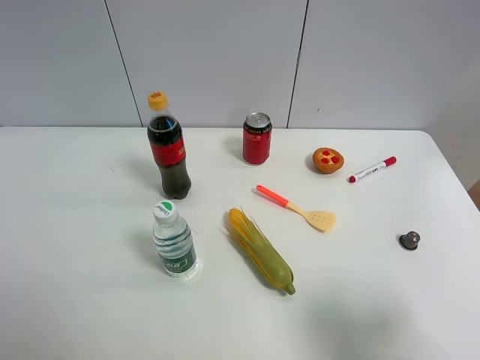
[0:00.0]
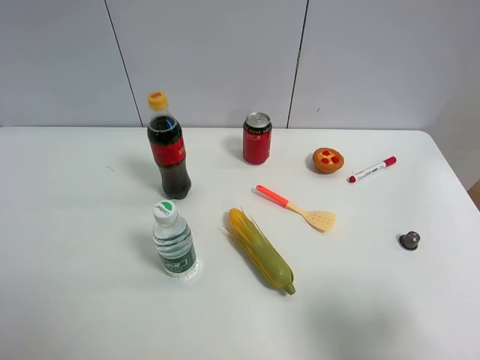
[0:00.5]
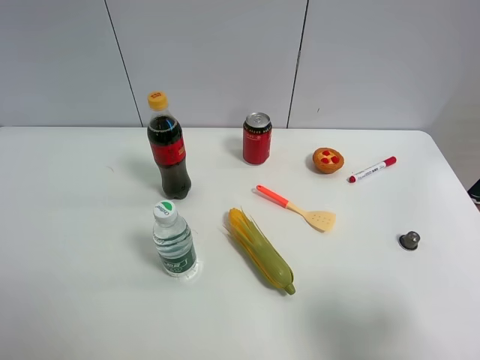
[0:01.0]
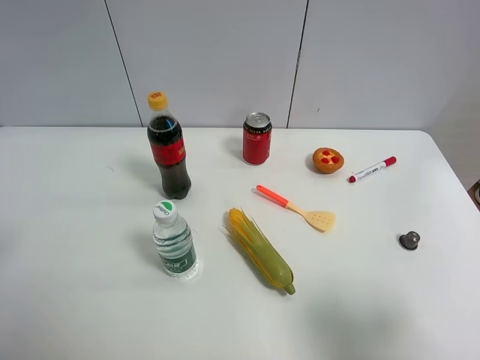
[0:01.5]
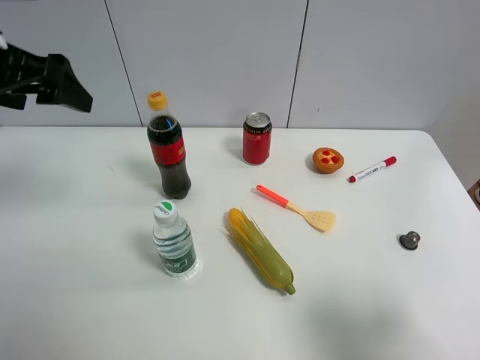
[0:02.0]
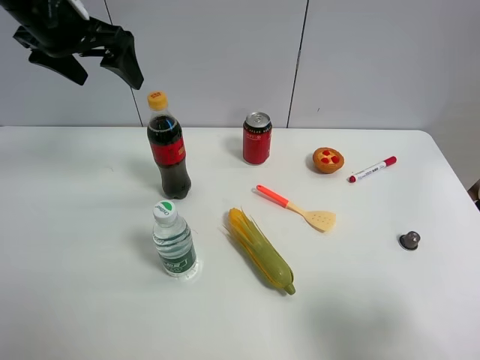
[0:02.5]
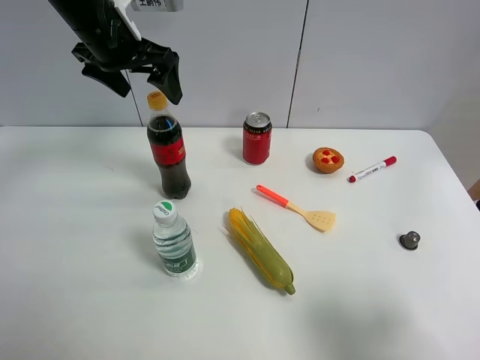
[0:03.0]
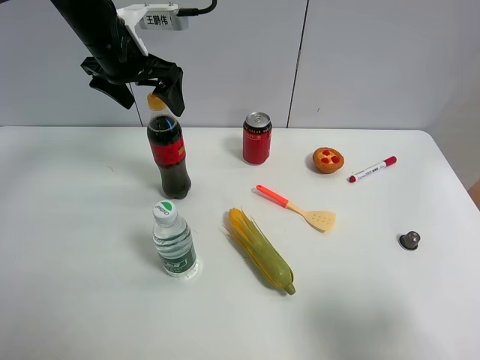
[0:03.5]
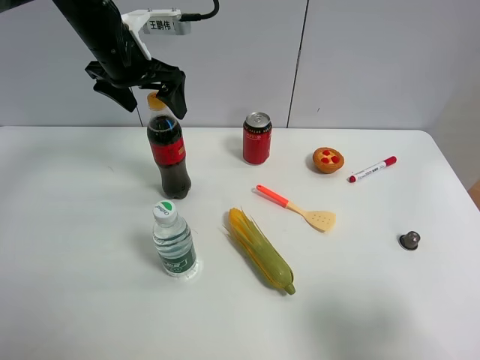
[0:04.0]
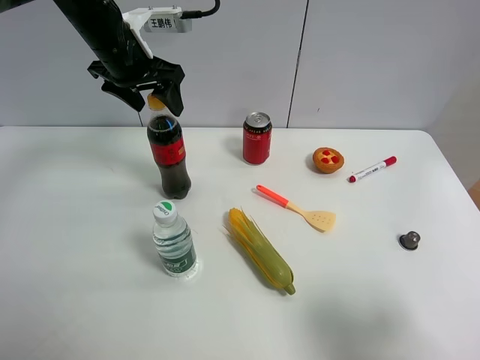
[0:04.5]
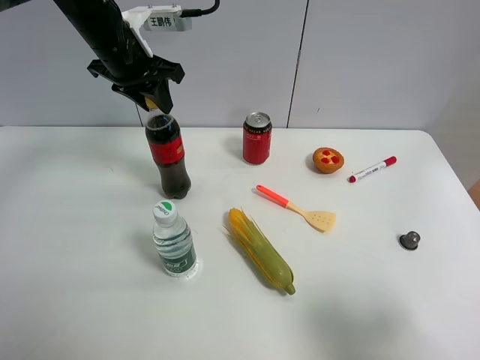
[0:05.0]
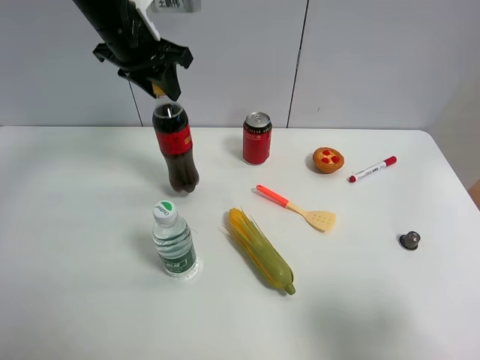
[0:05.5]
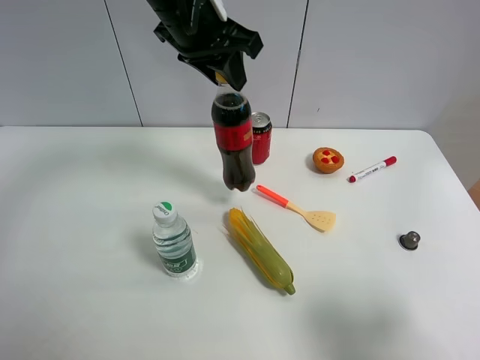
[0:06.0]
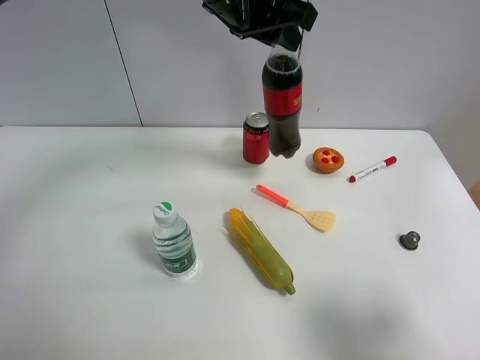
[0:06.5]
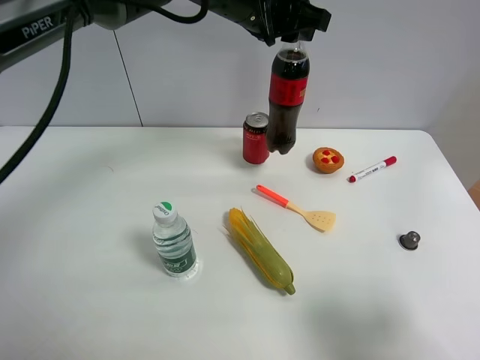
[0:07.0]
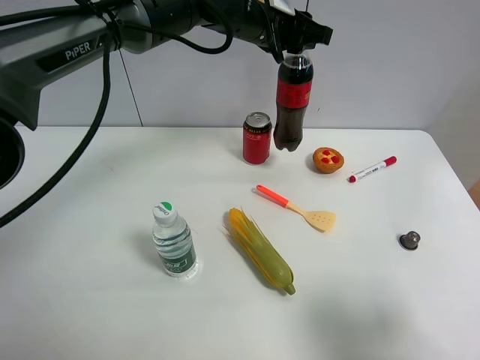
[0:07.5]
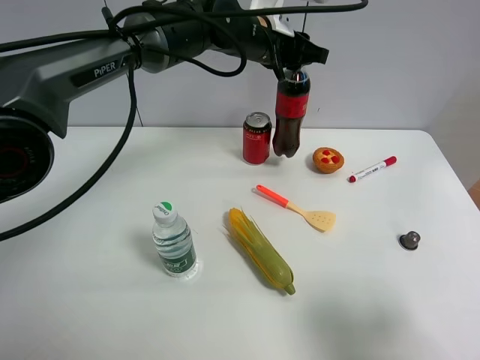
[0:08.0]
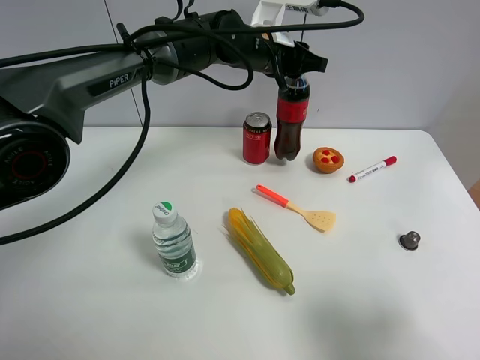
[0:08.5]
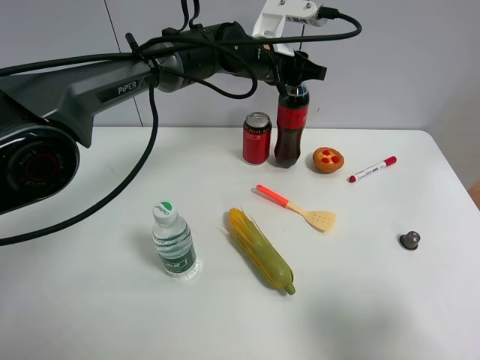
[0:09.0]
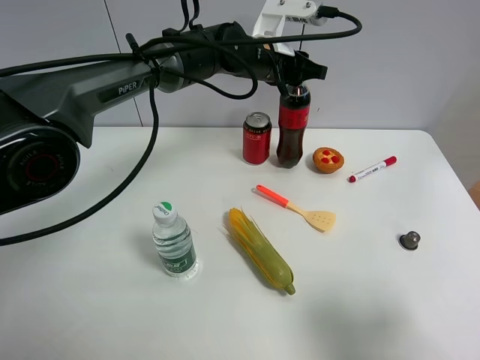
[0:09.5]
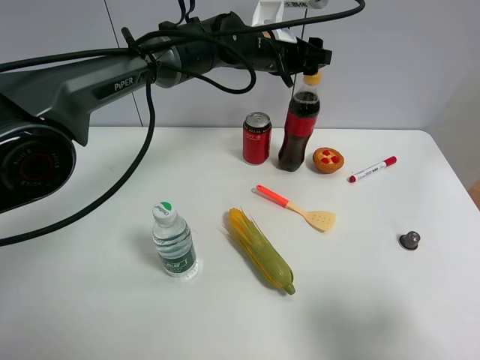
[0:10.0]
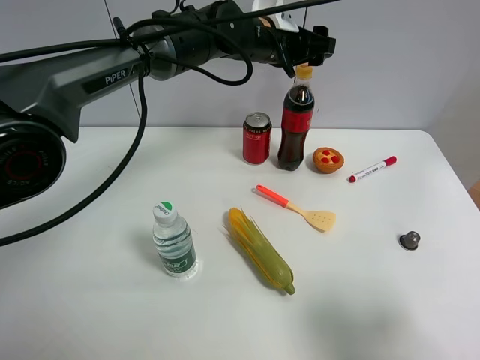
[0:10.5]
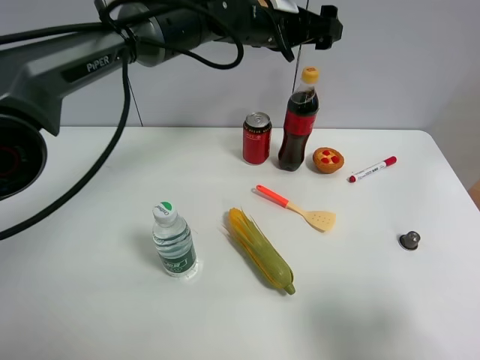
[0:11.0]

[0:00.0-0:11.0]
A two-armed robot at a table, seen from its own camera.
Task of the whole recording: the gripper move the object.
Step, 0:00.0 to 0:04.5: Grasp the coke with the left gripper.
Step, 0:05.0 to 0:09.5: Place the coke on the table with the left gripper.
0:00.0 to 0:02.0: The left gripper is displaced forward by approximately 25 cm.
0:02.0 to 0:03.5: The left gripper shifts roughly 15 cm forward, to the right and downward.
0:03.5 to 0:05.5: The left gripper closes up.
0:05.5 to 0:07.5: The left gripper goes some 15 cm to the right.
0:07.5 to 0:09.0: The left gripper shifts some 5 cm downward.
0:09.0 to 0:11.0: The left gripper is displaced upward by some 5 cm, and opens up.

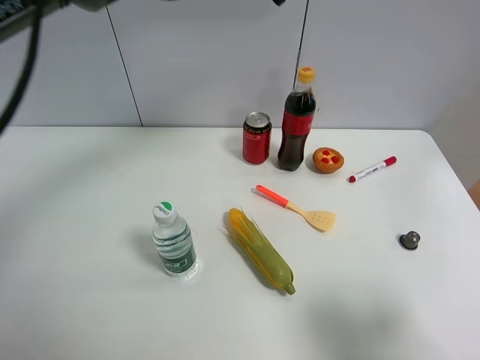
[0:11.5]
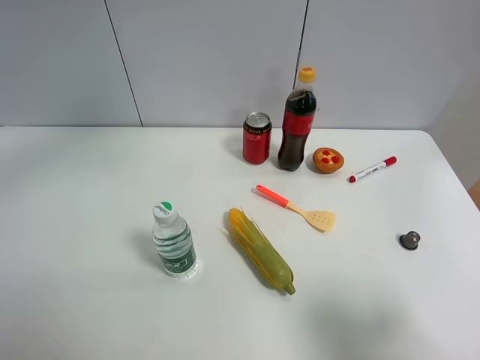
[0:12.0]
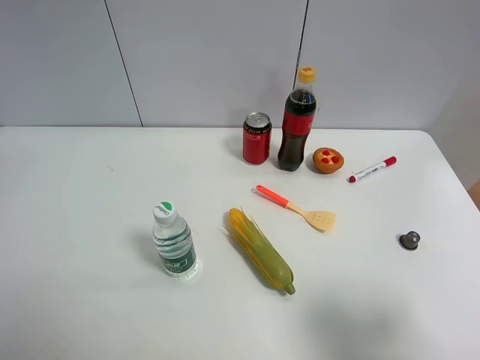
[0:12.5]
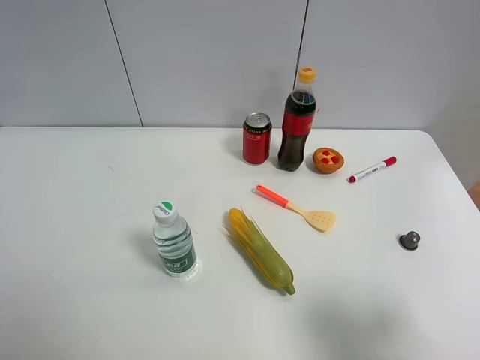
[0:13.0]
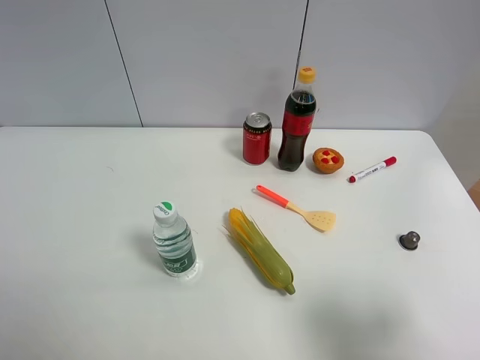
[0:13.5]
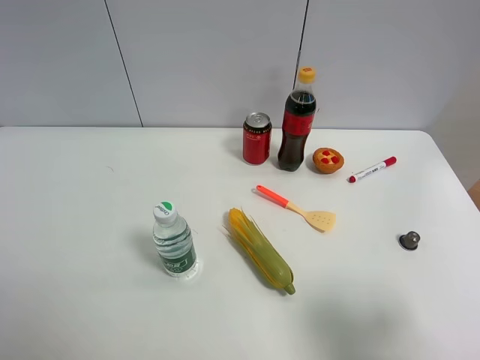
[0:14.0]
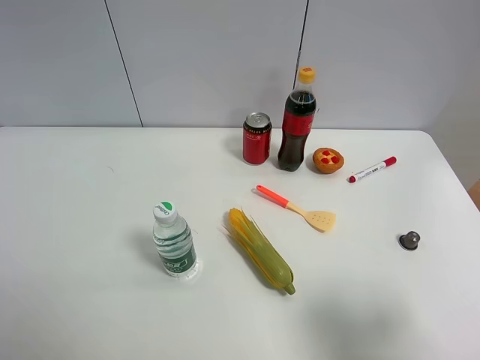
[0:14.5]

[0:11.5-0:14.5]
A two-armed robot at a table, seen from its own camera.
Task of the whole recording: the gripper move the object.
0:11.5 to 0:13.0: The left gripper moves backward and to the left, some 50 cm.

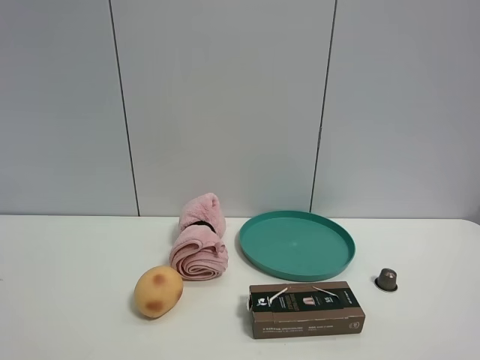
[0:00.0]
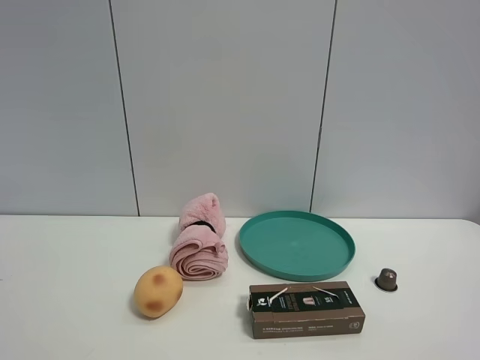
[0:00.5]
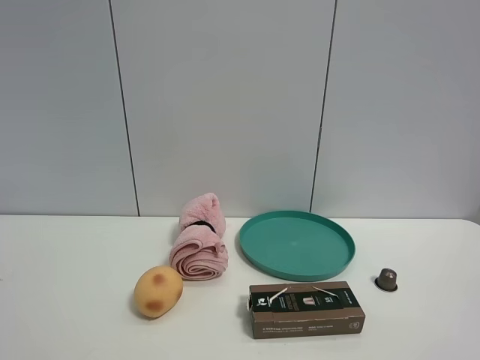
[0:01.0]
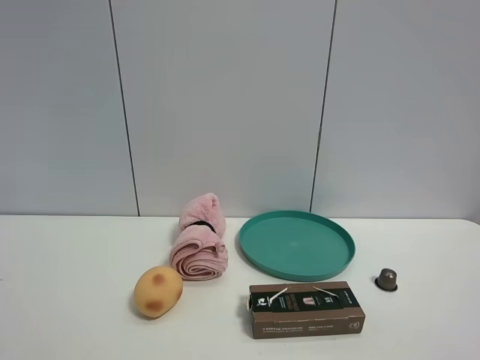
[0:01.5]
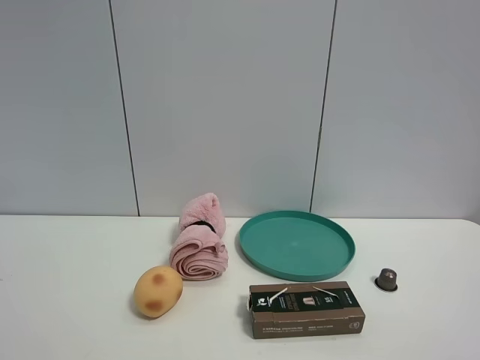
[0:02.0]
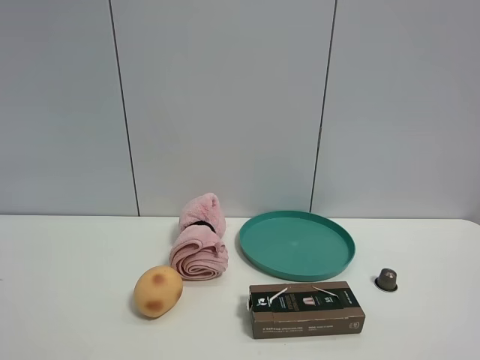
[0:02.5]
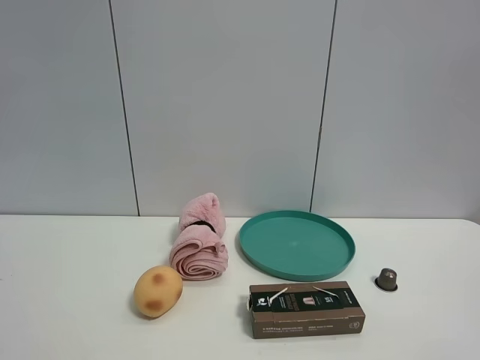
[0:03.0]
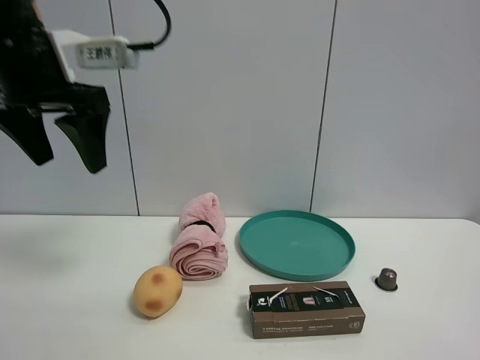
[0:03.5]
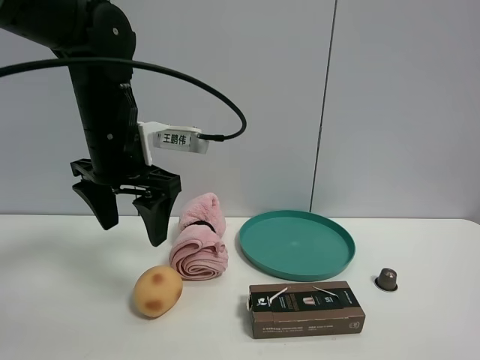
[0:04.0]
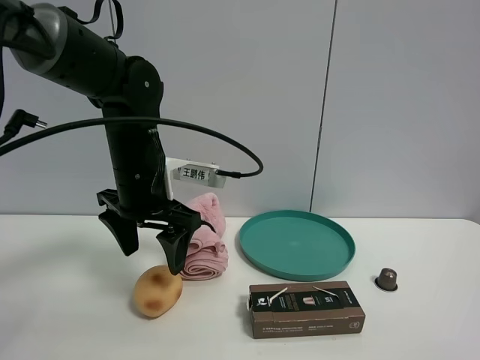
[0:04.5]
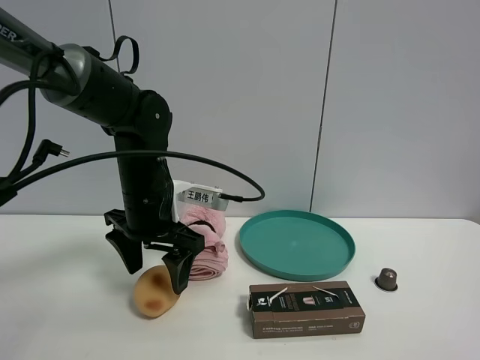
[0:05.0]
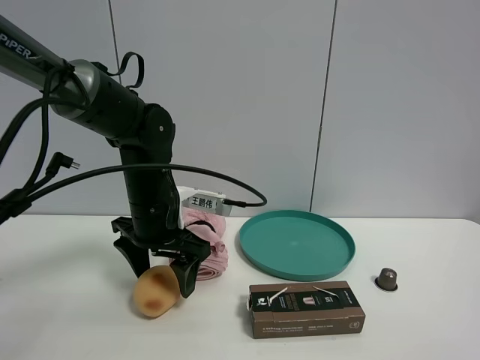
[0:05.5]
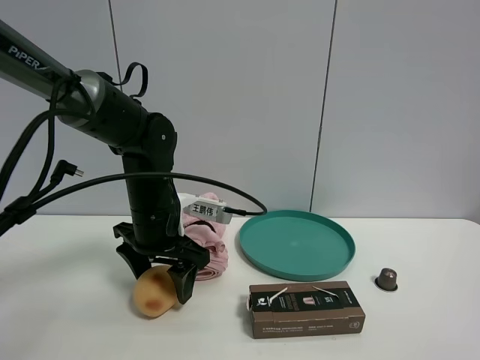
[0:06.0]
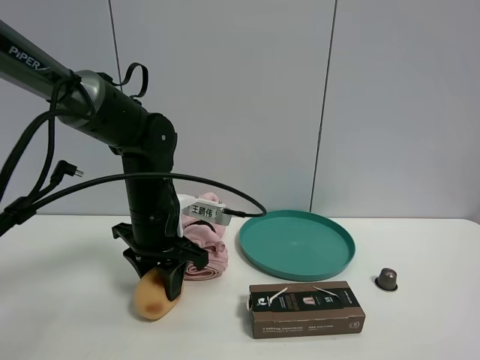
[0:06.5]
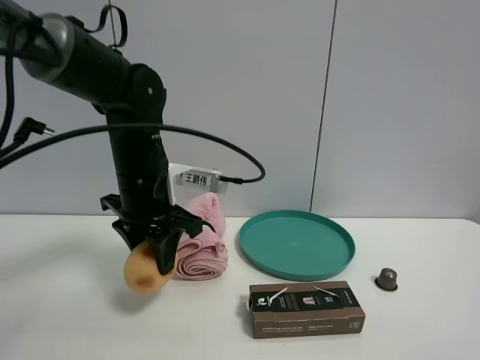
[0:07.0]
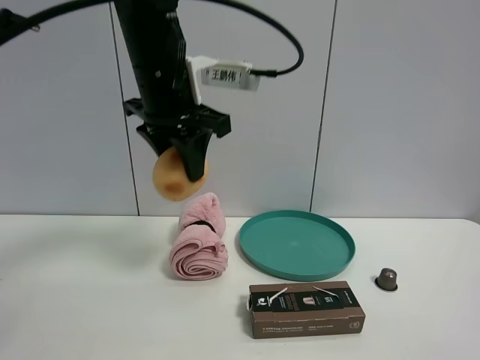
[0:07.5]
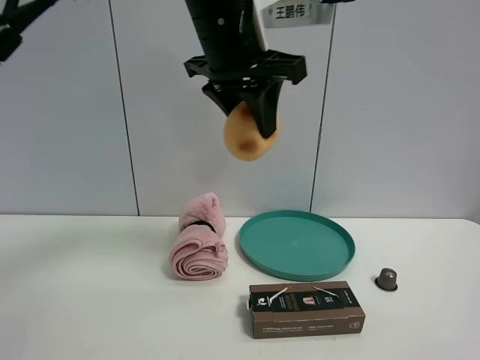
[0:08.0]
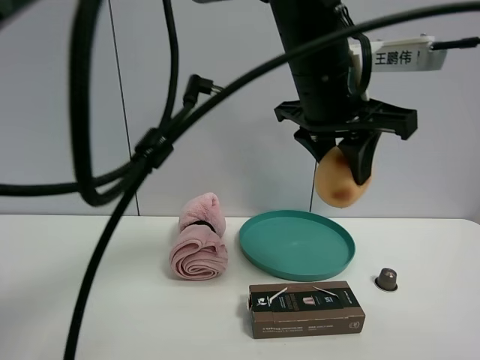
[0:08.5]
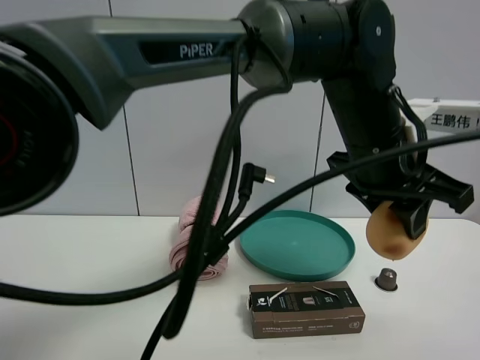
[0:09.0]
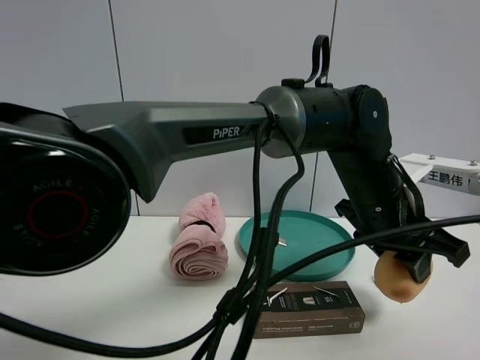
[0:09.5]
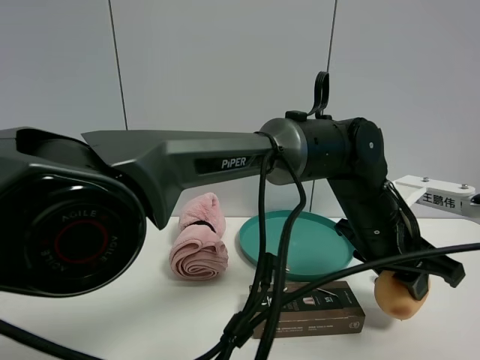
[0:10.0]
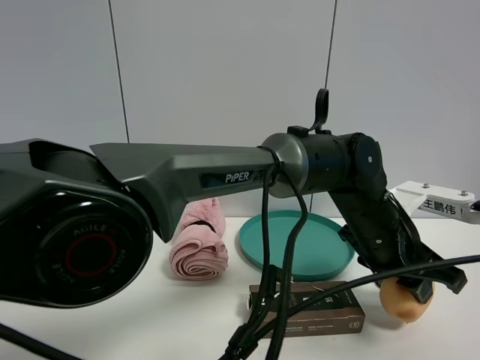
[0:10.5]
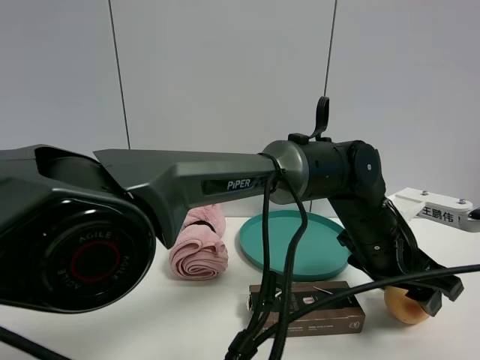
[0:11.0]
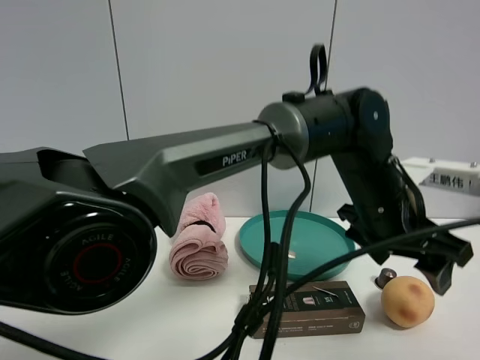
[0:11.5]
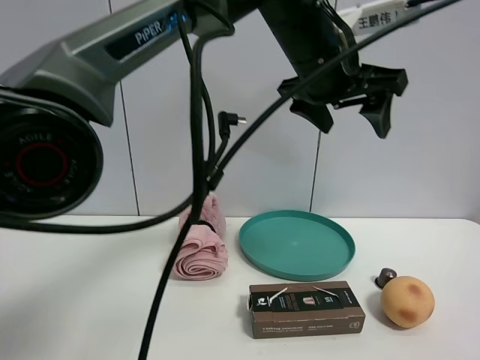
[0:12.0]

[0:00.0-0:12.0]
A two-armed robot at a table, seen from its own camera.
Task of the whole recording: the gripper move the object.
Step, 0:00.0 to 0:06.0: Grasp the egg yolk pastry with the left gripper.
Step, 0:06.5 to 0:11.0: Place the egg yolk pastry on the table with the left gripper.
0:00.0 to 0:02.0: Both grippers stay put.
0:02.0 to 0:04.0: The left gripper moves forward and to the right, about 40 cm.
0:04.0 to 0:06.0: The left gripper shifts approximately 10 cm downward.
0:06.0 to 0:08.0: The left gripper heads upward and to the right, covering approximately 25 cm, and closes up.
0:08.0 to 0:10.0: The left gripper goes about 25 cm downward and to the right.
0:10.0 to 0:12.0: The left gripper moves upward and to the left, about 20 cm, and opens its fingers.
